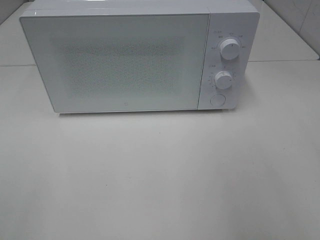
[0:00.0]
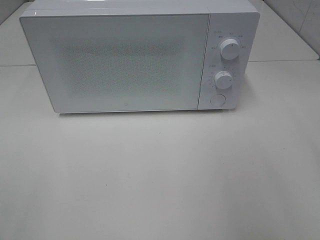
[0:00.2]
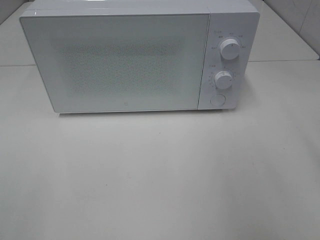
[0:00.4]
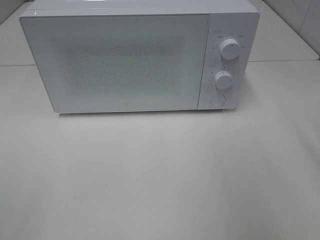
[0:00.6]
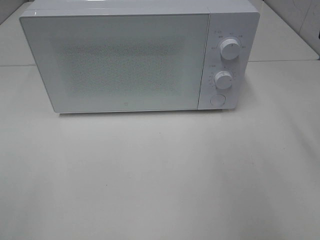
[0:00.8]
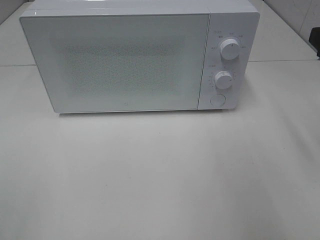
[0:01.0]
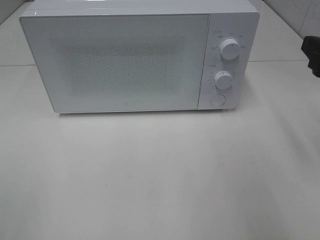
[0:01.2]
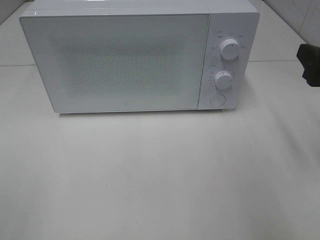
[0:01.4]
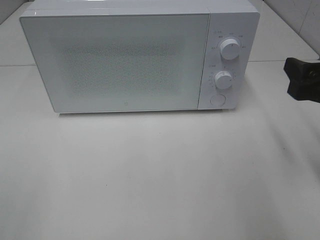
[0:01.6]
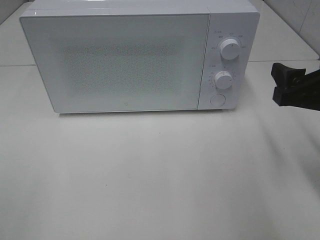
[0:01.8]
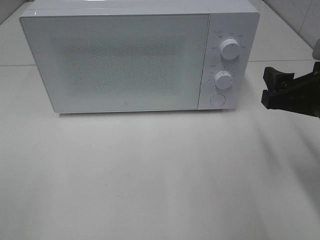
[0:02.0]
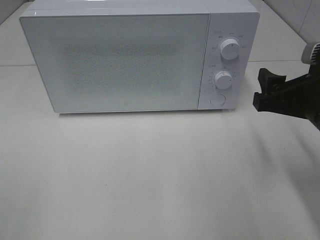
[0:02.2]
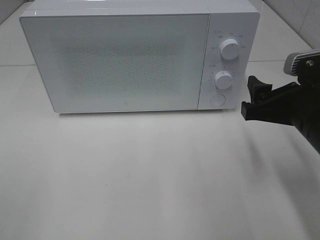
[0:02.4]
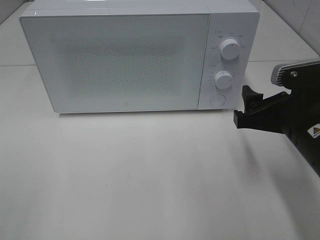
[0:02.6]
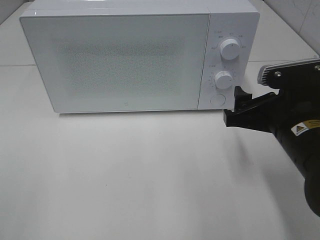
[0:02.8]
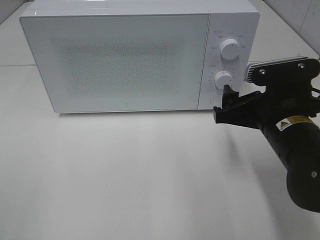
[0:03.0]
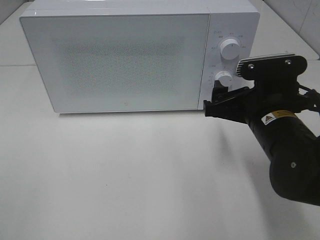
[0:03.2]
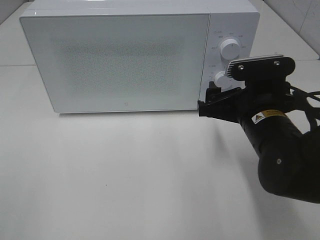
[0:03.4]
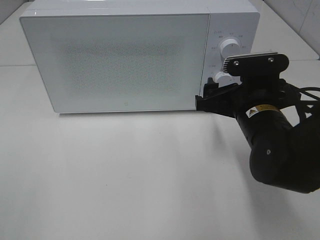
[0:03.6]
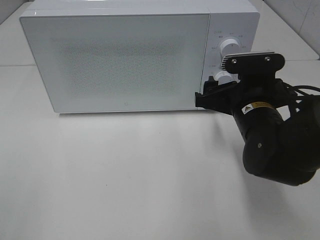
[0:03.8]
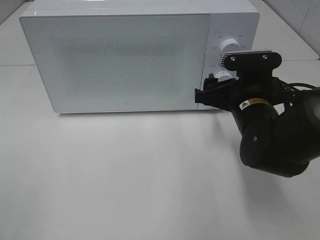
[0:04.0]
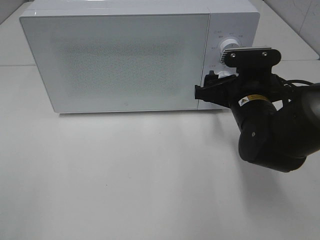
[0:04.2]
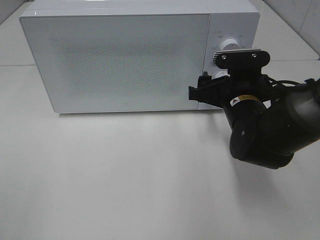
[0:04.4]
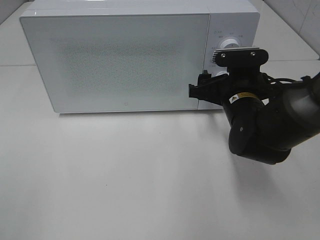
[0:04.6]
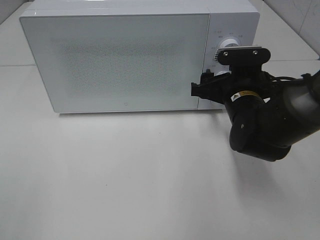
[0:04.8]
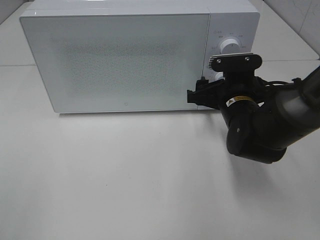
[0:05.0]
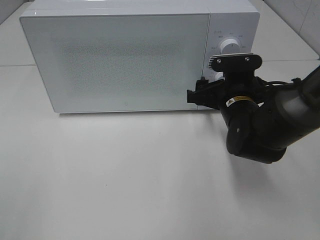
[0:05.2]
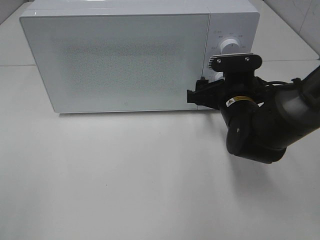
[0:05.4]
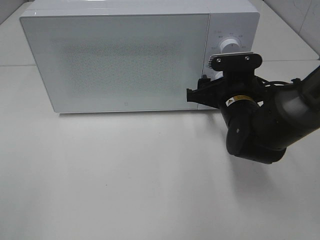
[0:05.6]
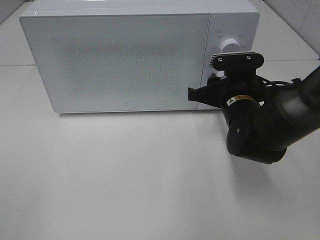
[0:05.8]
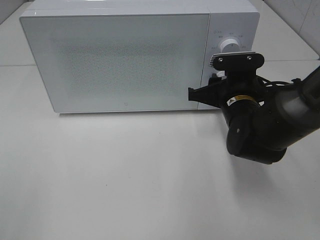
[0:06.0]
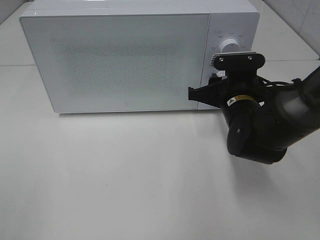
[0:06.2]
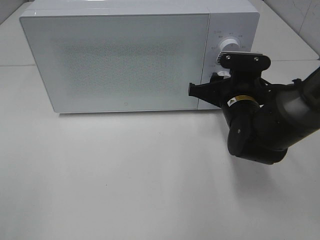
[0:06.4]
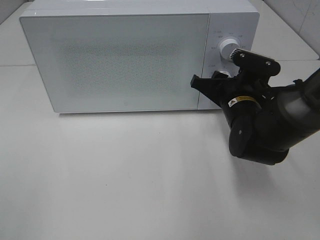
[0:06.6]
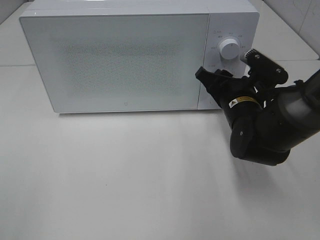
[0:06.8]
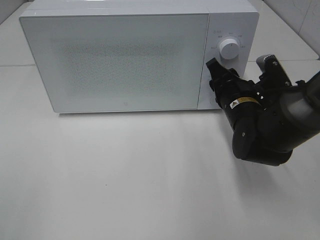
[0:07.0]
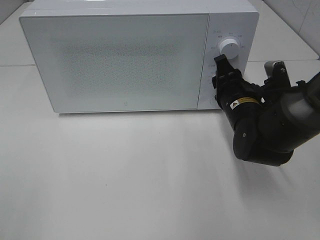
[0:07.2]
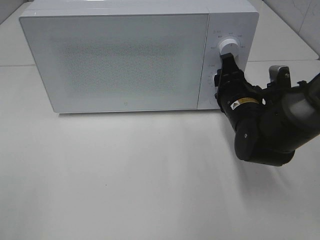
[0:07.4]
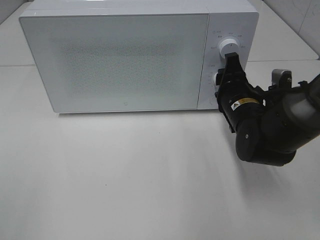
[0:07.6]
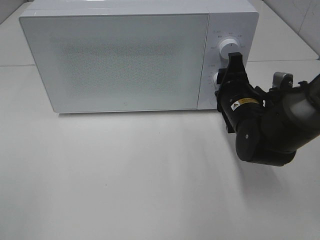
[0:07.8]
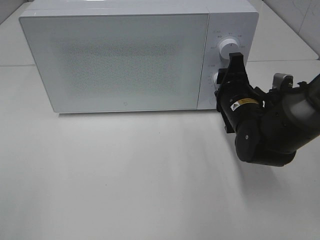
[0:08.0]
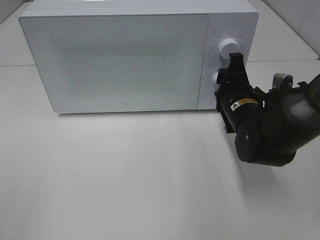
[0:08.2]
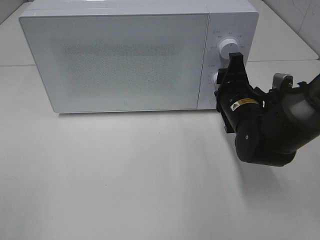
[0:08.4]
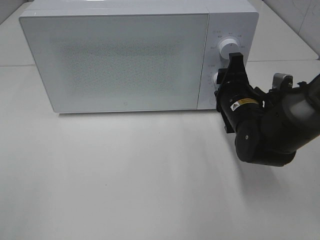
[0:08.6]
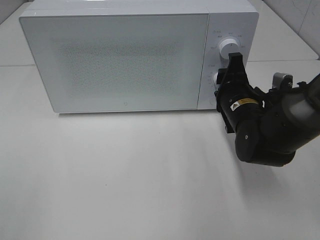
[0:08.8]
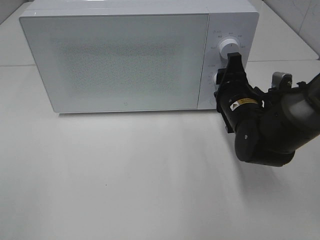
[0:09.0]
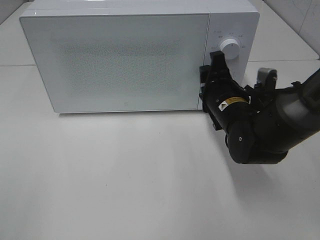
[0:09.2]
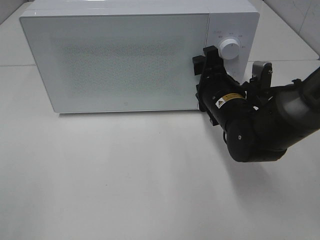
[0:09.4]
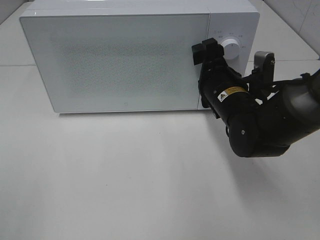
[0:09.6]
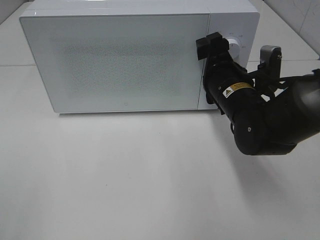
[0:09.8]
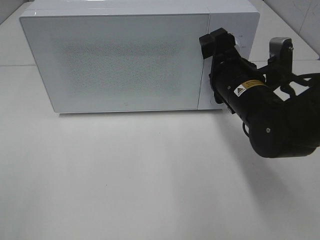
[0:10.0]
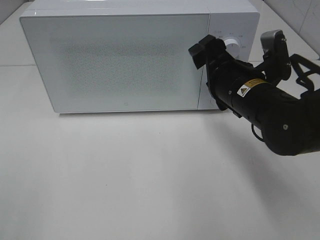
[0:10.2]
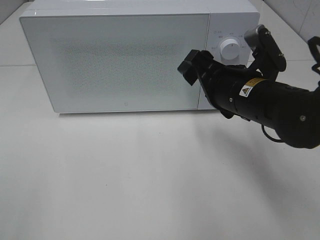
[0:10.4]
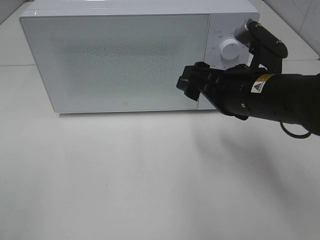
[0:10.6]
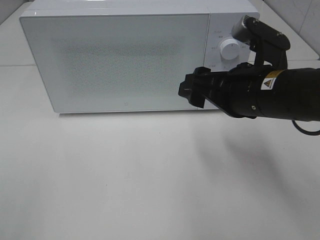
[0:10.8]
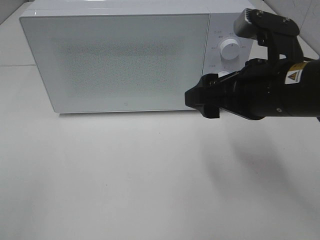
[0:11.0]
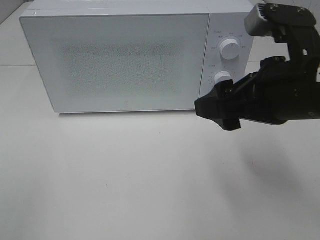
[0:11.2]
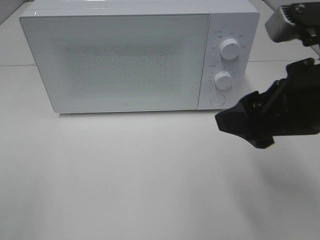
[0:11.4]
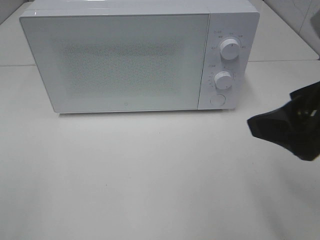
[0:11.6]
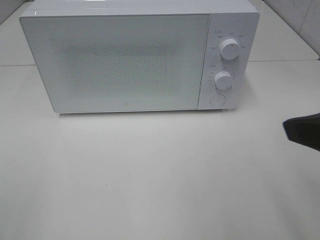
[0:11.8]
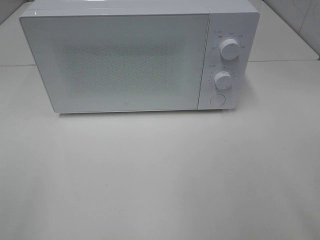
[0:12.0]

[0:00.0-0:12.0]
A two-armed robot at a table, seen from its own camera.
Task of the whole recording: Heat the burger.
Step, 0:00.0 to 0:09.0: Right hand: twist timer button.
0:00.0 to 0:01.6: The right gripper goes some 15 cm downward and forward.
0:01.6 to 0:03.0: The right gripper is displaced to the left and downward by approximately 10 cm.
0:03.0 to 0:04.4: The right gripper heads forward, covering about 10 cm.
0:04.4 to 0:06.0: The right gripper closes.
0:09.0 to 0:10.4: The right gripper heads upward and backward, covering approximately 10 cm, and opens up.
0:10.4 to 0:12.0: The right gripper shifts some 25 cm backward, upward and to the right.

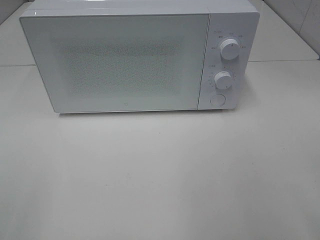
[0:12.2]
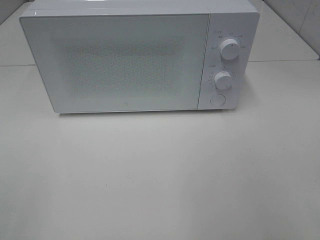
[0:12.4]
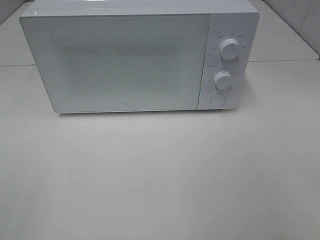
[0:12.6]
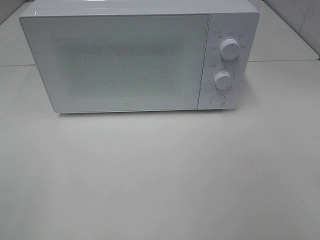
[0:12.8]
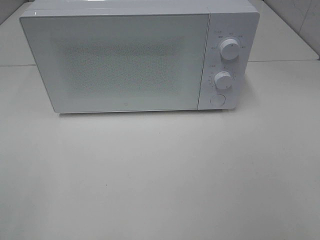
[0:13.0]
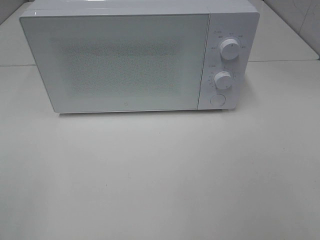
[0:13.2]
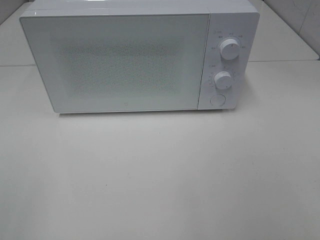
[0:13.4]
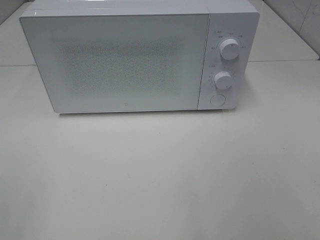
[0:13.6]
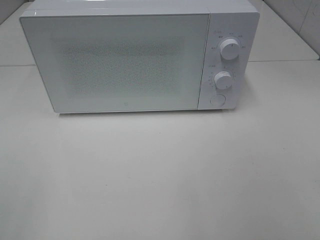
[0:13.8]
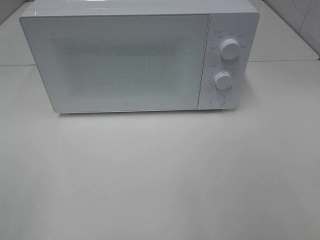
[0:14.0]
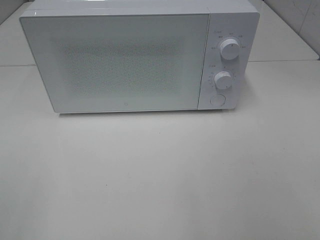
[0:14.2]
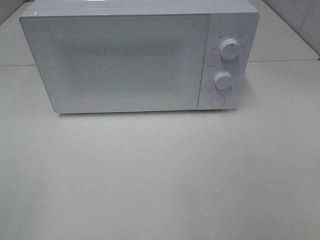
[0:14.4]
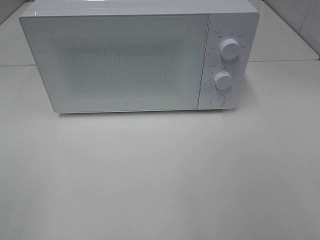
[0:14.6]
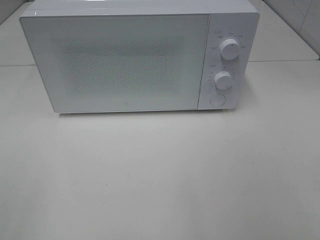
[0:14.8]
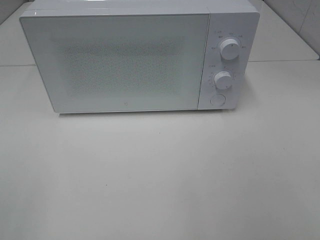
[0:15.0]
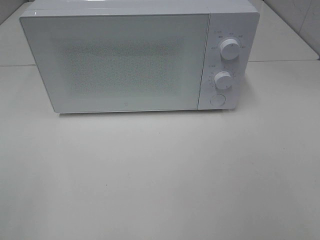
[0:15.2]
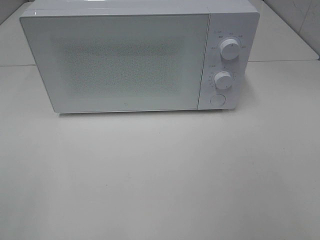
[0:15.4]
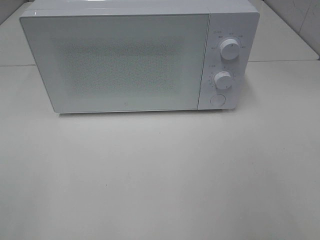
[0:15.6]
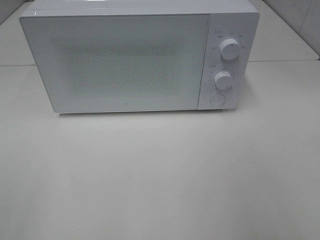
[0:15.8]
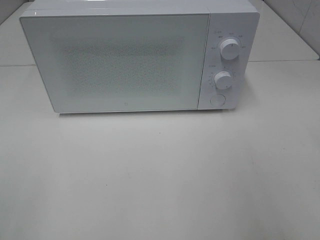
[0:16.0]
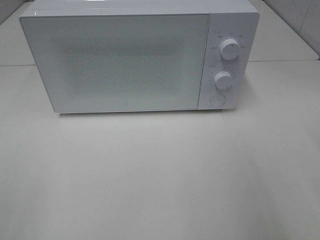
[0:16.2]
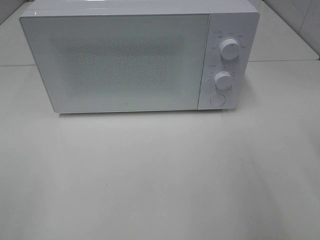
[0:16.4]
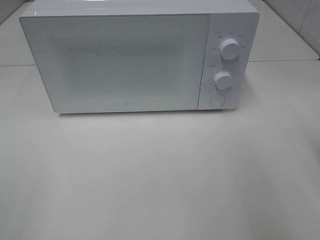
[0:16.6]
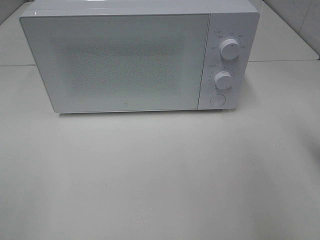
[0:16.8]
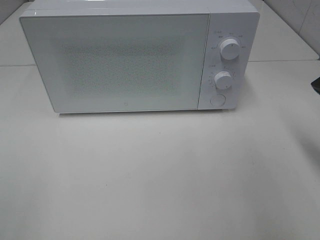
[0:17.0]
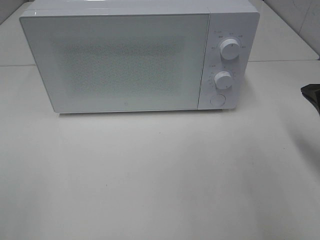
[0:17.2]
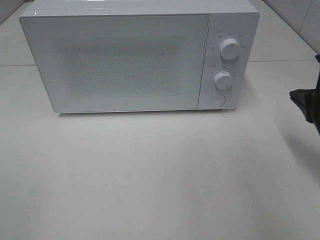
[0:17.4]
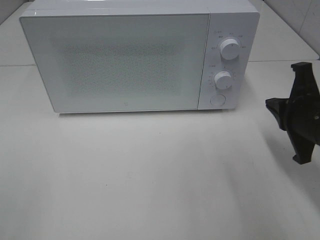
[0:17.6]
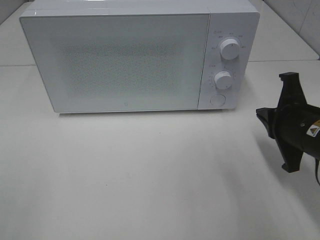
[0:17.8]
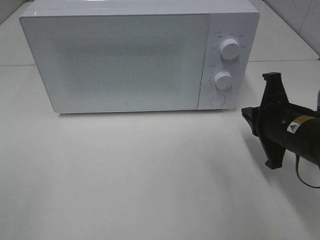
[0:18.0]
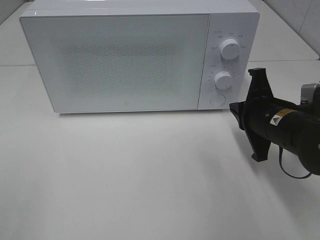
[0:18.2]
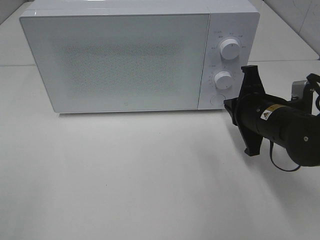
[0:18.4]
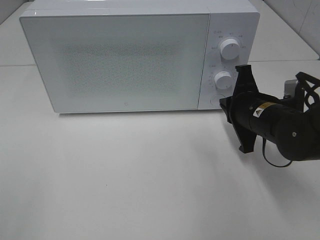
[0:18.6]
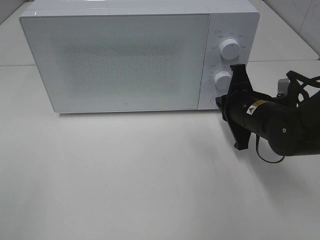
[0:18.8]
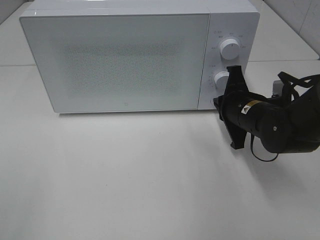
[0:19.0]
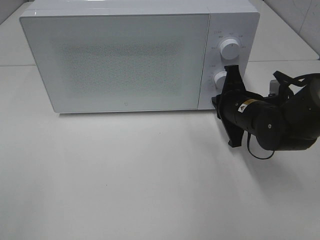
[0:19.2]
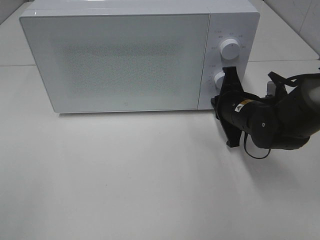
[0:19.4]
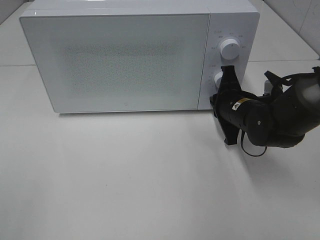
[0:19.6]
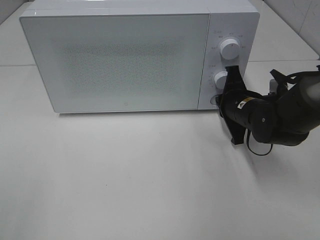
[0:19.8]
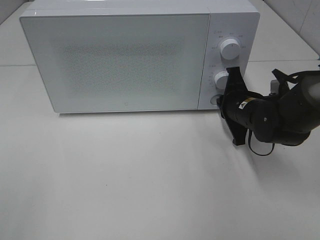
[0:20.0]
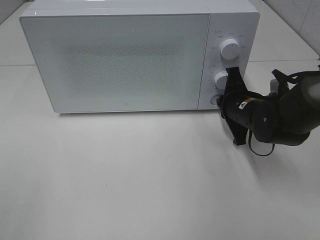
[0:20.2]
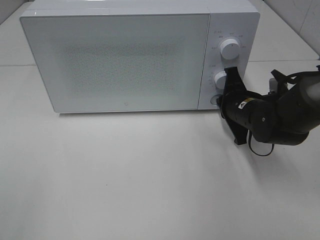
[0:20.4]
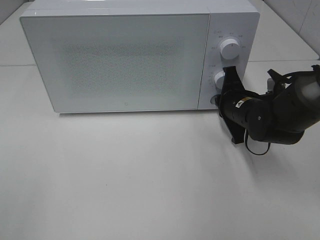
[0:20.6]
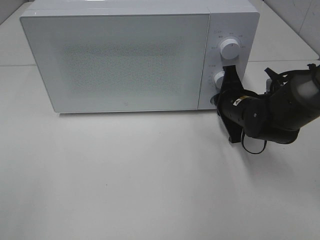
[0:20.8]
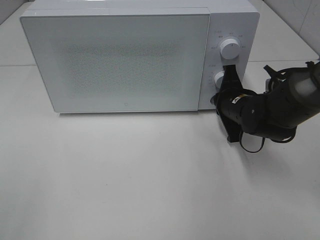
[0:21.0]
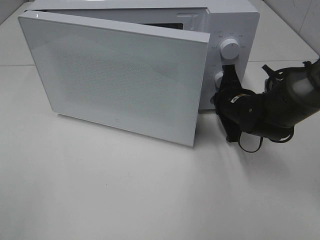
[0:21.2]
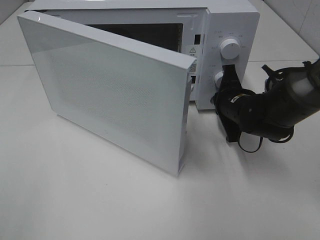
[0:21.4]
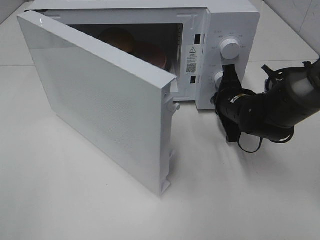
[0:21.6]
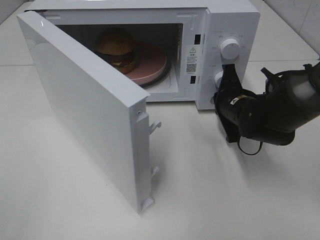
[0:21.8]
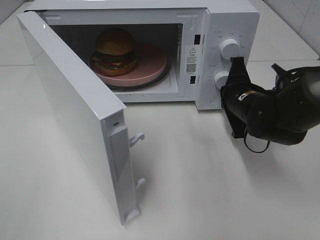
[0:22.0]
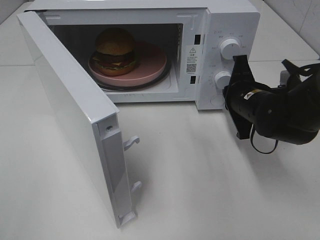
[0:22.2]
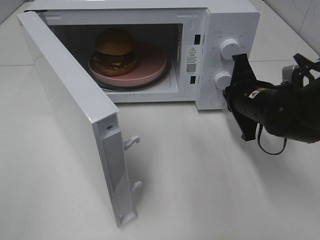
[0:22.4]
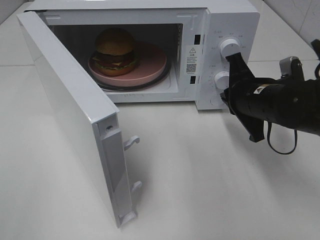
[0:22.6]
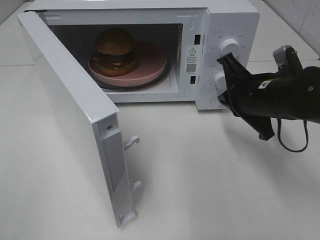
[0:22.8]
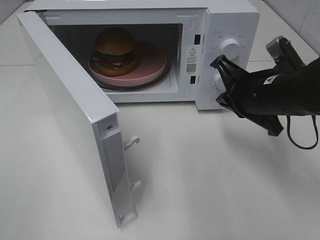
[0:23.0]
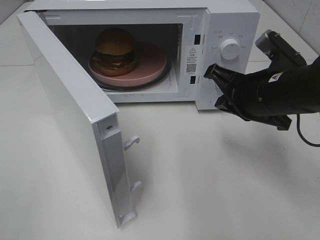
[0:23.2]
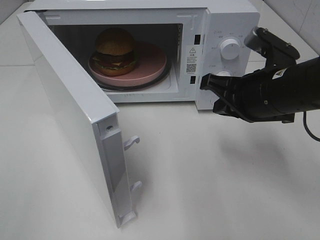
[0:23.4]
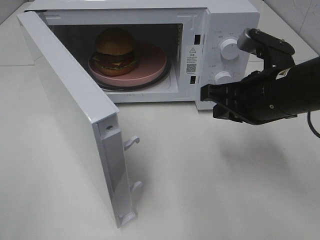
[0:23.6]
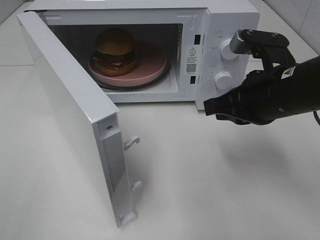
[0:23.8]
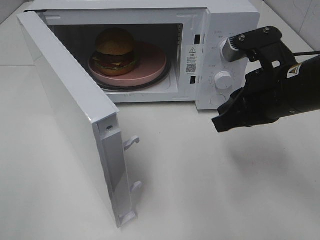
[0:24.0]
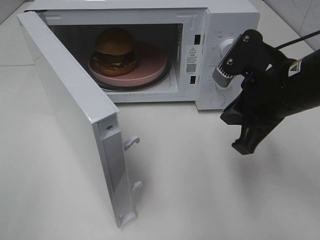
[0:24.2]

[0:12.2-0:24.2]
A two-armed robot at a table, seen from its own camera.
Task of the whole recording: Heat the burger.
Step, 0:12.2 to 0:22.0: Right hand: press the switch.
0:13.8 to 0:15.2: Both grippers stay about where they are.
0:16.6 to 0:18.2: The right gripper shifts roughly 20 cm downward, forward and to the left.
0:18.2 to 0:19.8: The right gripper travels forward by approximately 10 cm.
0:19.8 to 0:21.2: There are only small adjustments of the grippers.
0:21.2 to 0:22.6: The right gripper moves backward and upward, roughly 10 cm.
0:22.6 to 0:24.2: The right gripper goes some 10 cm upward and backward.
